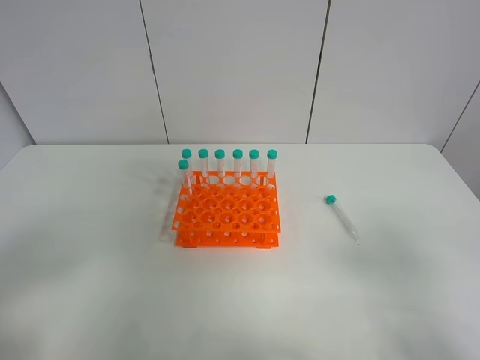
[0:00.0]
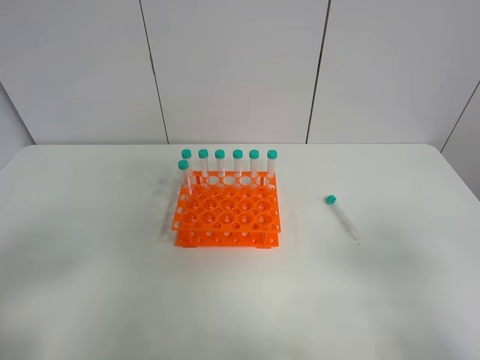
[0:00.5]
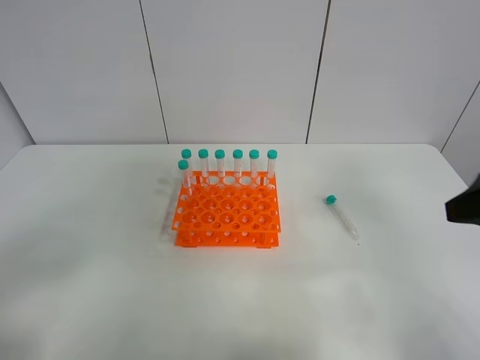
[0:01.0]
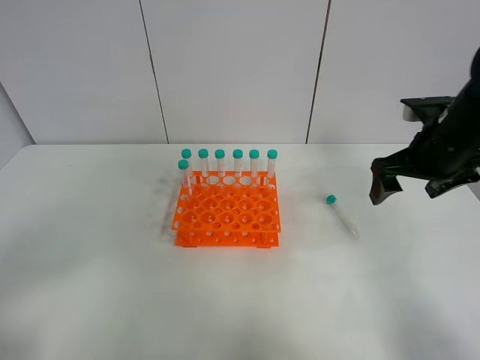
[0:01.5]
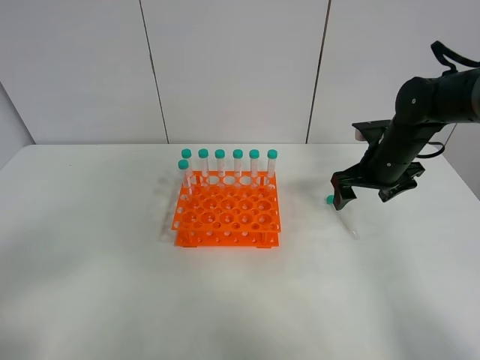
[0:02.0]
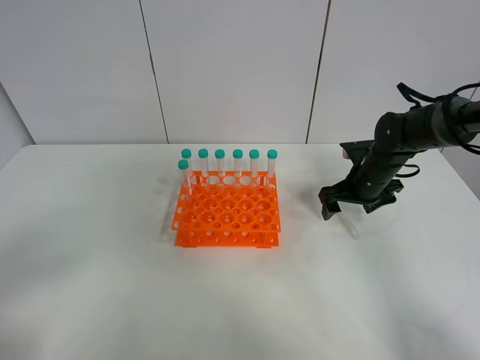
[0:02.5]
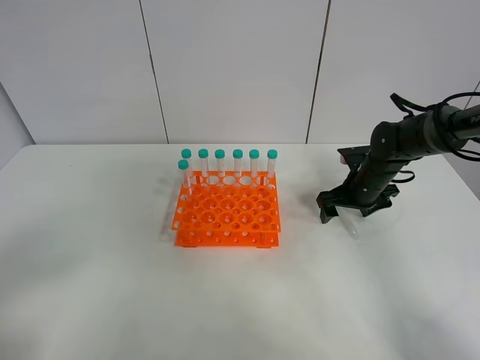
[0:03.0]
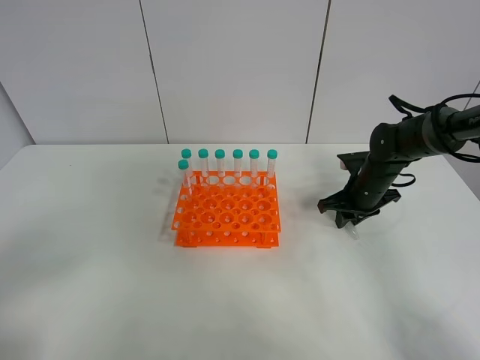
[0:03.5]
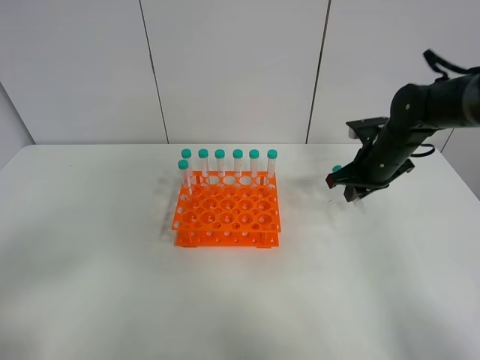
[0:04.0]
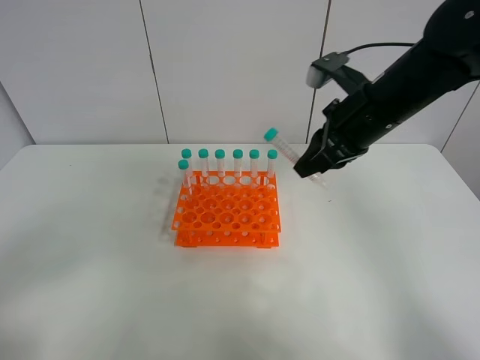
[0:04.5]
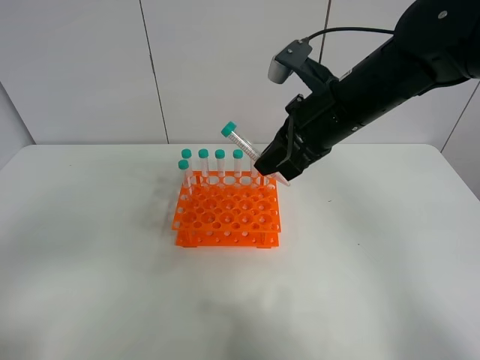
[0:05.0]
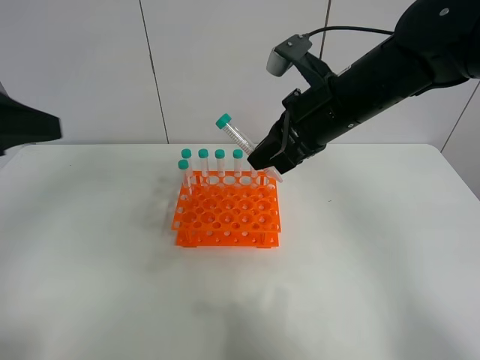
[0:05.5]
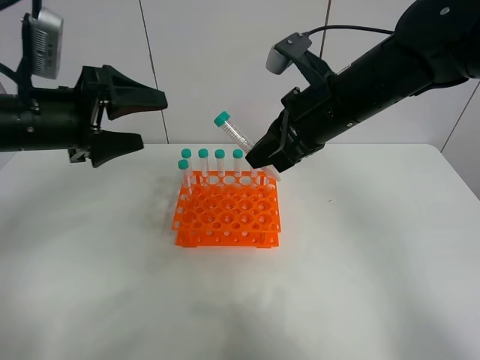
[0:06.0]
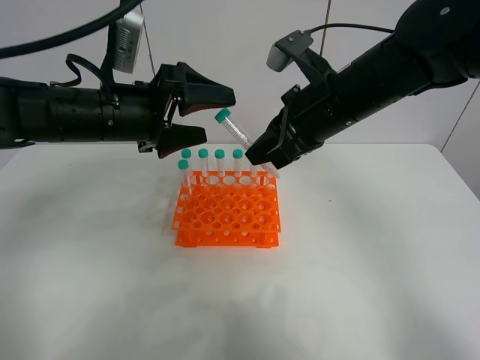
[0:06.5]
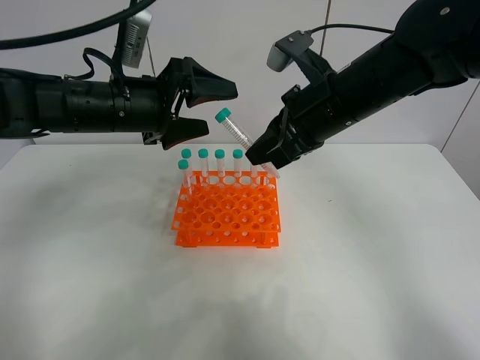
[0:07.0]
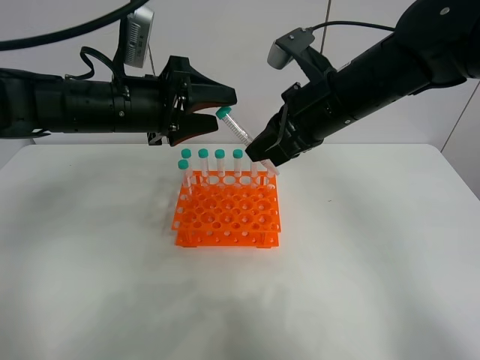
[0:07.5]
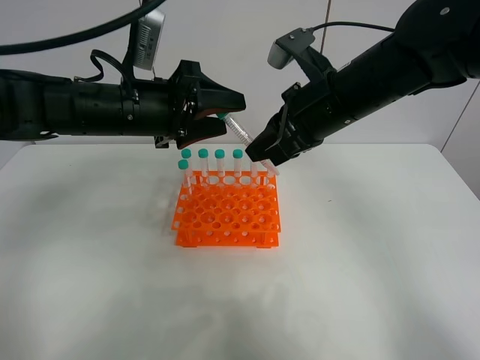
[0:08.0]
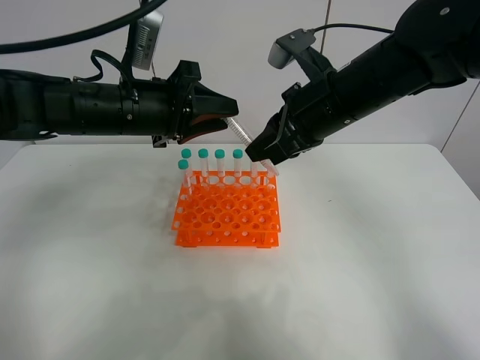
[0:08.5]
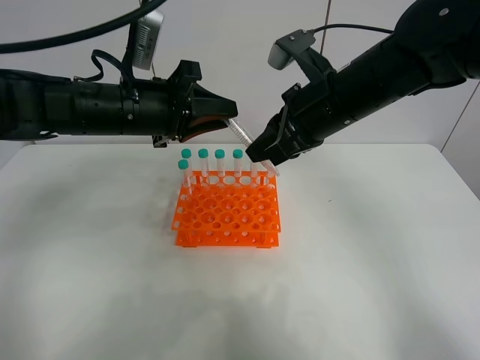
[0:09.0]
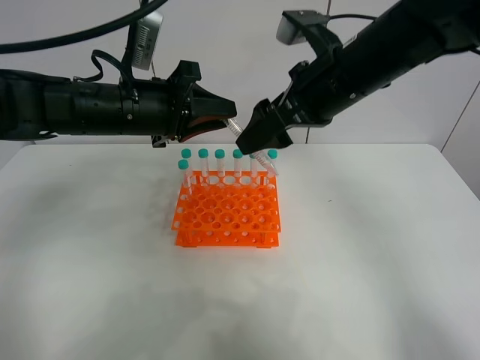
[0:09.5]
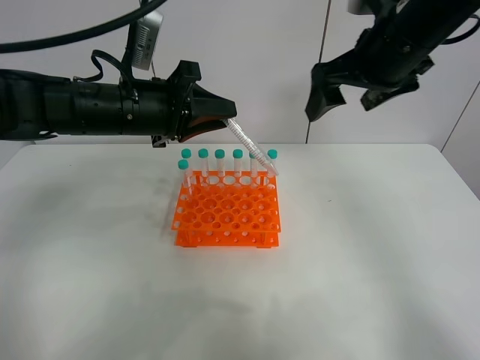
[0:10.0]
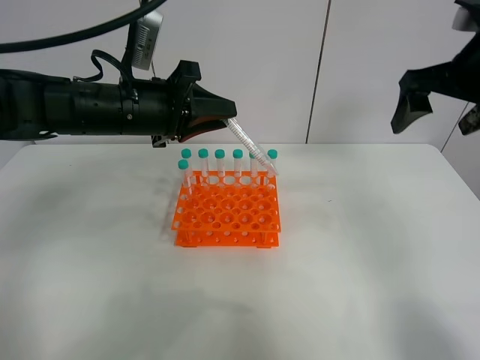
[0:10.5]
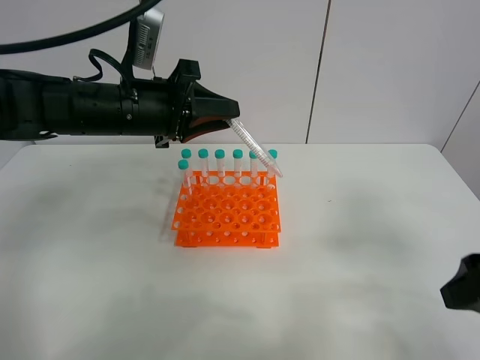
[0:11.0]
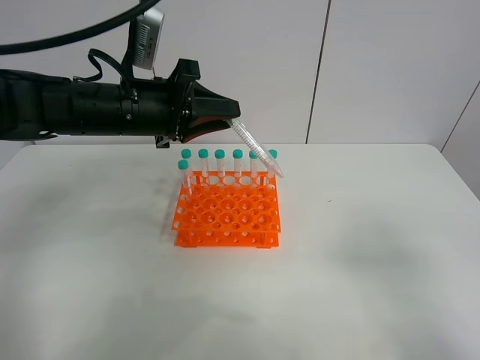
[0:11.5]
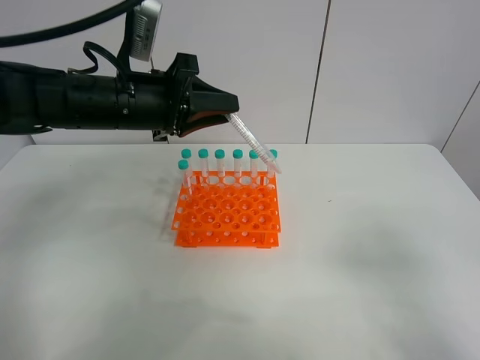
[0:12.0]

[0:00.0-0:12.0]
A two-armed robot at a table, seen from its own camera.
Task of the whole recording: Put the test tube on the table back onto the test tube rack.
Step, 0:00.0 to 0:04.0: Pick up the test tube with the right gripper.
Step, 0:04.5 to 0:09.5: Move the test tube from the right gripper to the left gripper.
0:00.0 to 0:02.0: The right gripper moves forward, about 40 cm.
0:02.0 to 0:04.0: The right gripper moves approximately 5 cm downward and comes back, and closes its fingers.
0:04.0 to 0:06.0: The right gripper moves to the left, upward and backward, some 20 cm, while the left gripper shifts approximately 30 cm forward.
0:06.0 to 0:08.0: The left gripper moves to the right, roughly 10 cm, and closes.
0:08.0 to 0:10.0: The left gripper closes up; the right gripper goes about 10 cm to the right and upward, and opens.
0:10.0 to 0:12.0: The right gripper heads backward, covering some 35 cm.

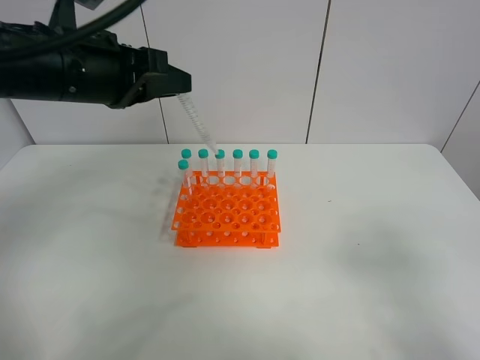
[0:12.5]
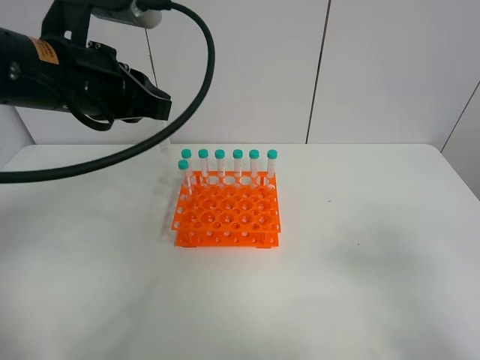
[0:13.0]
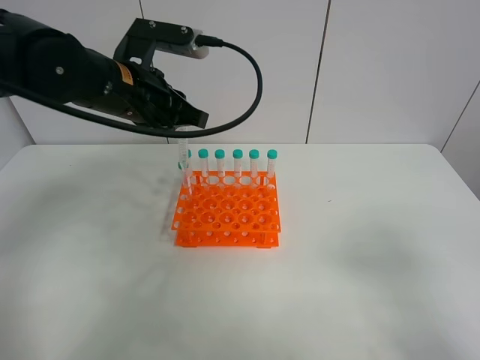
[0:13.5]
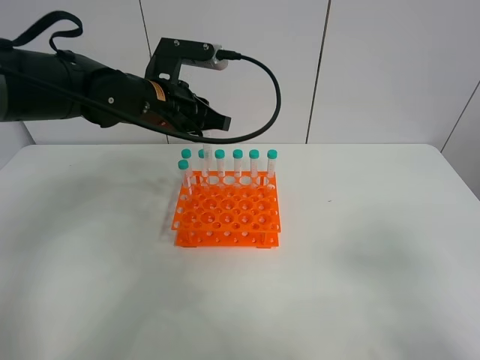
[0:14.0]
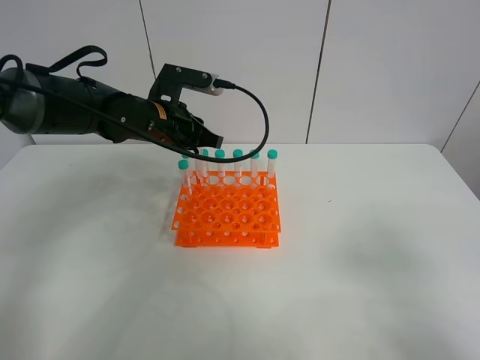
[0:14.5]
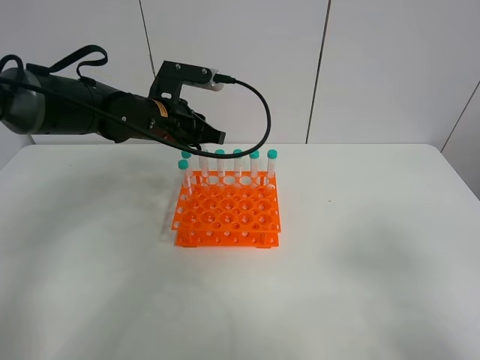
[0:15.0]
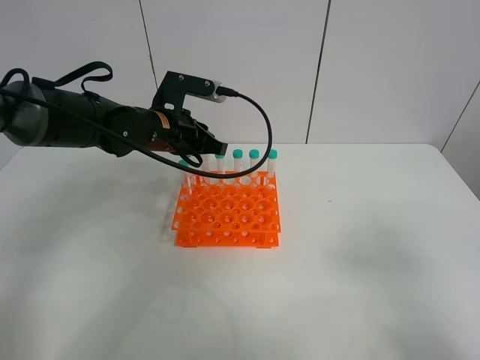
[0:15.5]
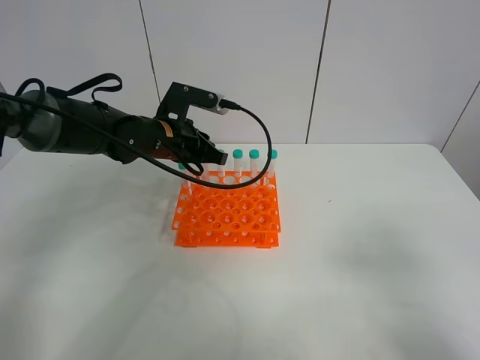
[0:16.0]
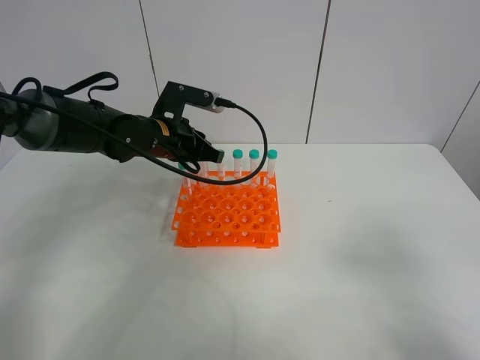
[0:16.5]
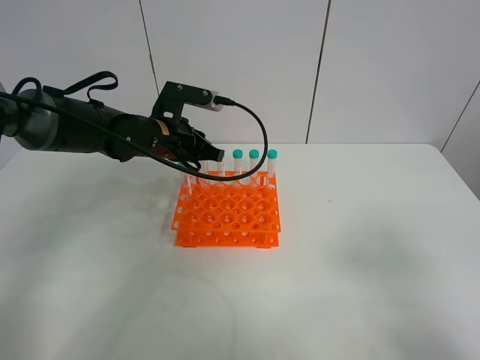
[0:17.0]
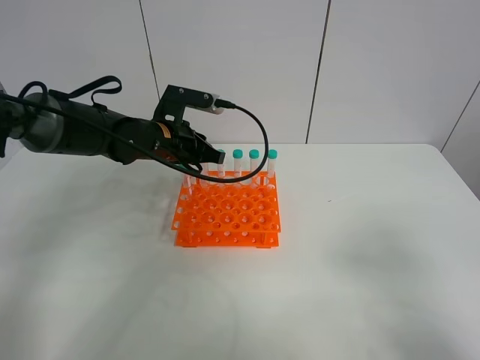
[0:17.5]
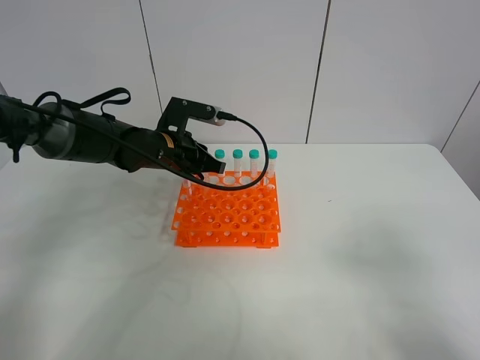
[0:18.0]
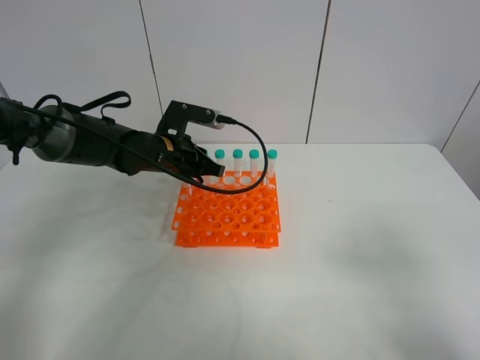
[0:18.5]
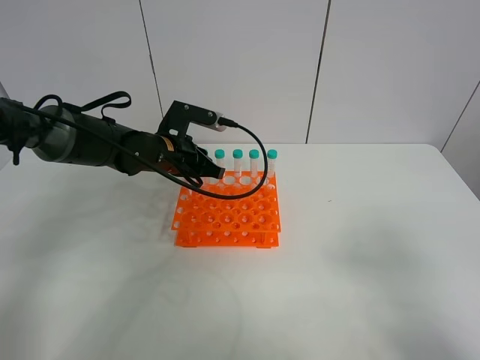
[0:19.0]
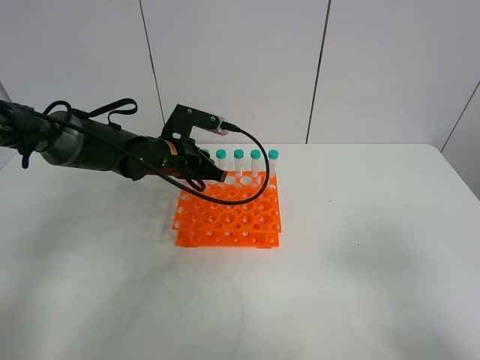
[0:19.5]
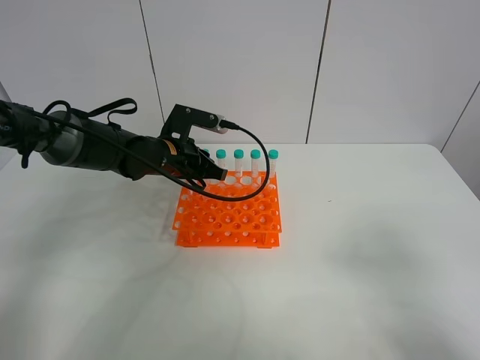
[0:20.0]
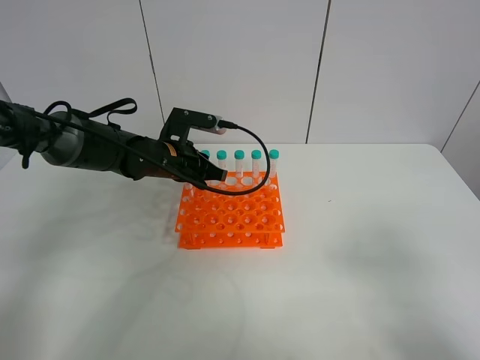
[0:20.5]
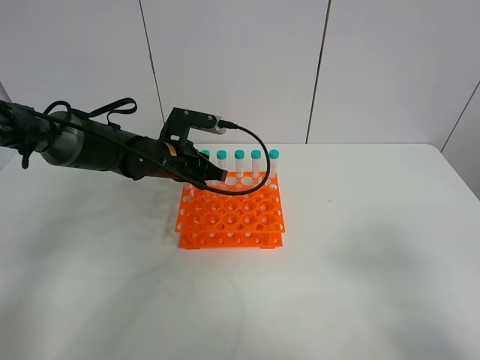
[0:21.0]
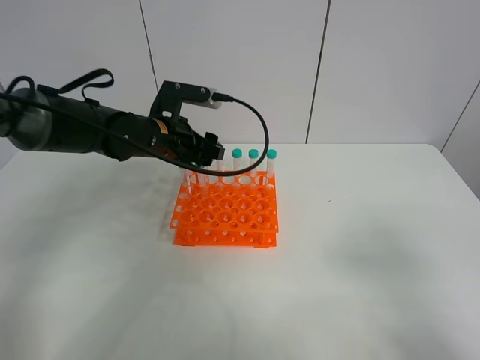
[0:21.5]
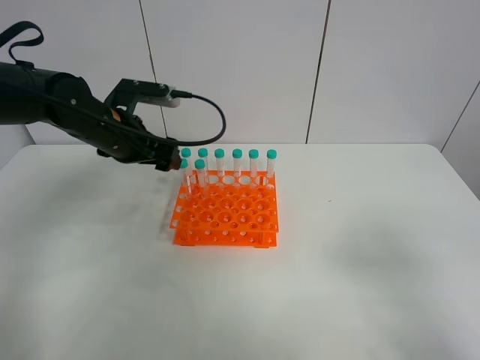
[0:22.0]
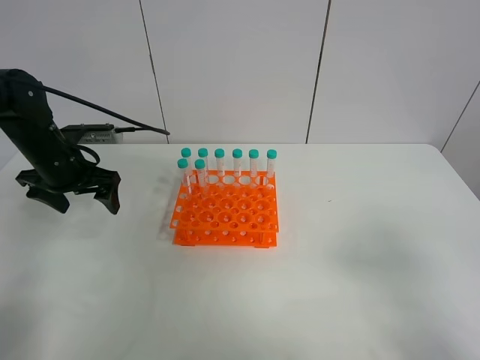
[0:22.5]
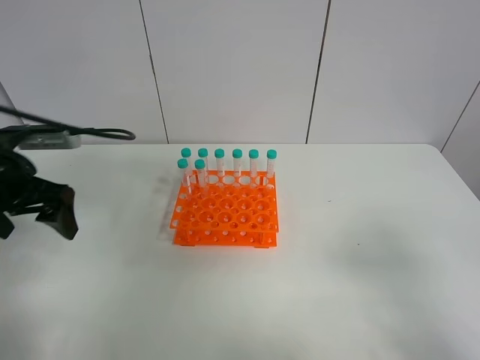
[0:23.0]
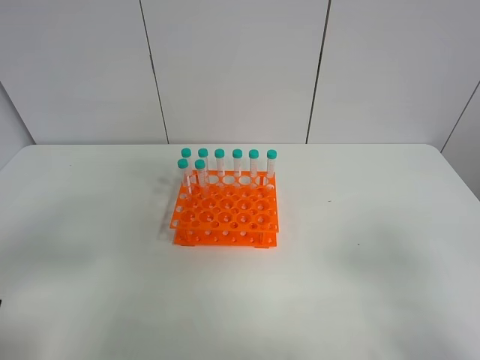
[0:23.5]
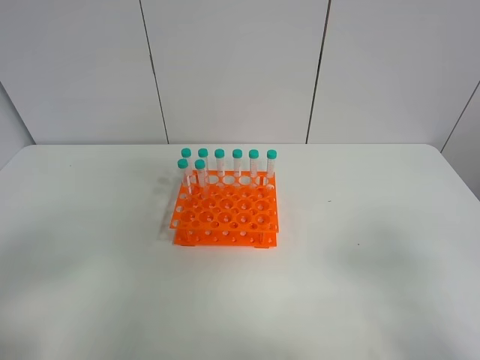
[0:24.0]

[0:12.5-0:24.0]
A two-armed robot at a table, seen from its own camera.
Task of the whole recording: Put the test tube on the table back onto the test tube rack.
Step, 0:12.5 to 0:22.0: Place the test tube on the test tube rack with the left gripper.
0:12.5 to 0:14.5: The left gripper goes approximately 15 cm downward and forward.
0:14.5 to 0:18.5: The grippers make only small movements.
0:18.5 to 0:20.0: Both grippers stay about where they are.
0:20.0 to 0:22.0: The left gripper goes roughly 10 cm to the left and upward, and opens its fingers.
0:22.0 to 0:24.0: The left gripper moves backward, some 35 cm.

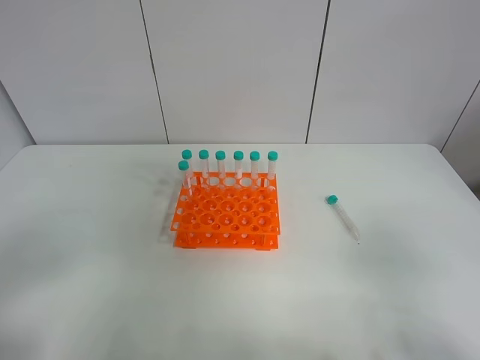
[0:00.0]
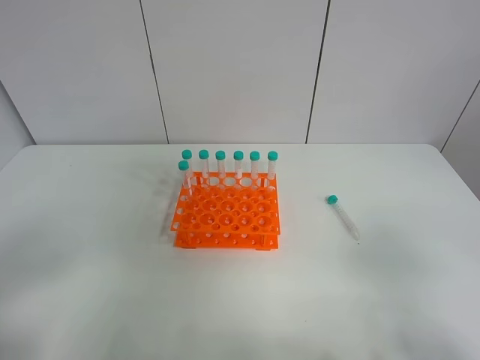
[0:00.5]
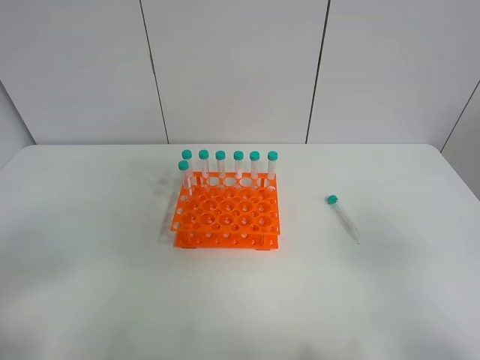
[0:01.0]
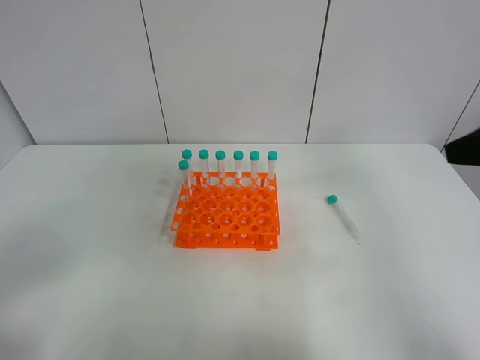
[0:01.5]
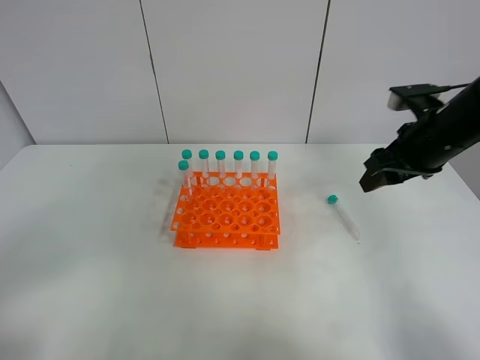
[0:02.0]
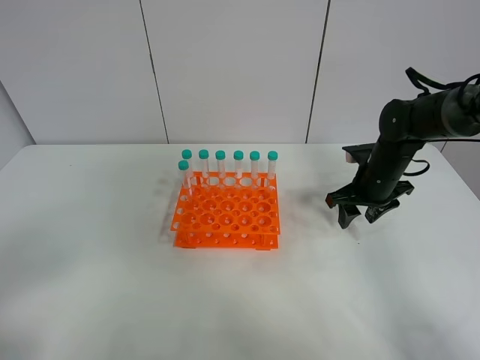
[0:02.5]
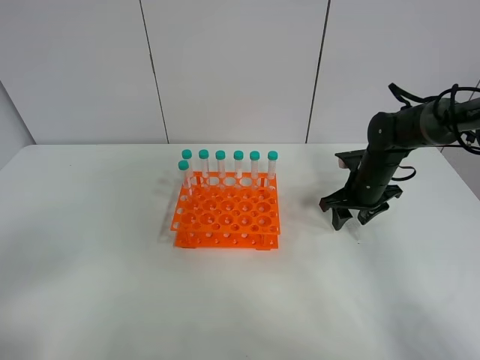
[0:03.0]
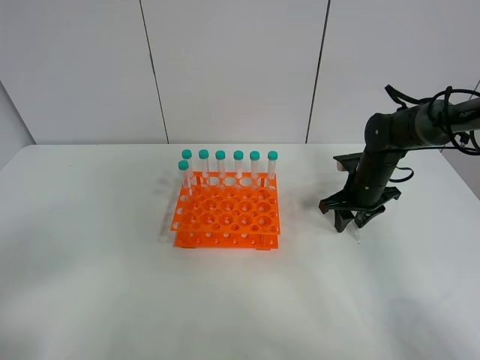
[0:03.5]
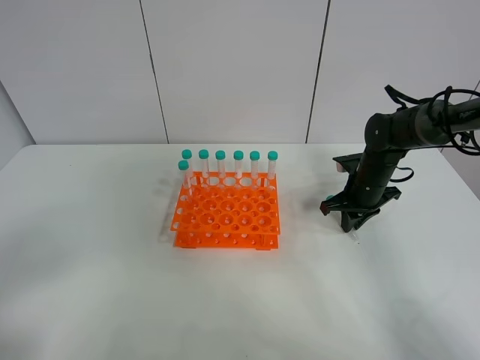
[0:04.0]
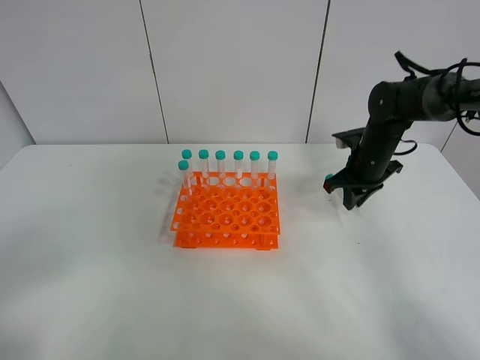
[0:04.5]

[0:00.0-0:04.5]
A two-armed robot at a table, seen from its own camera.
Task of the whole recording: Put the test tube on the table back onto the test tube rack.
Step, 0:00.0 to 0:04.0: Pick up the test tube with the right gripper.
0:00.0 to 0:02.0: The right gripper moves forward, roughly 30 cm.
0:02.0 to 0:04.5: The right gripper goes about 15 cm forward and downward, and closes.
